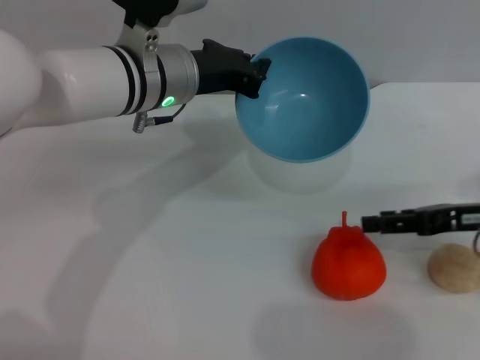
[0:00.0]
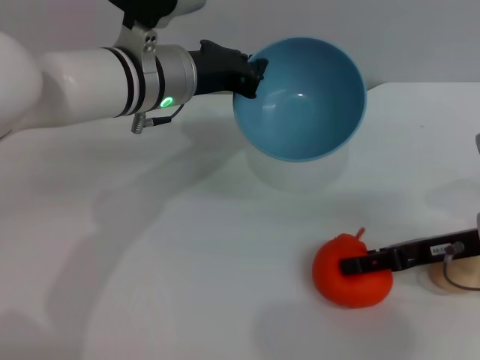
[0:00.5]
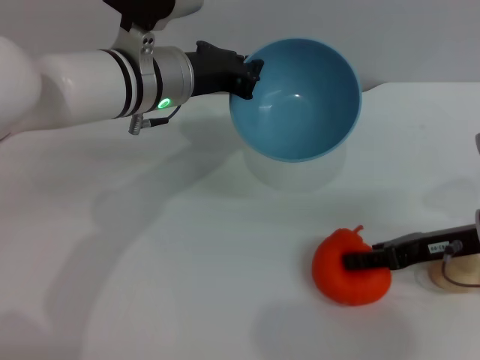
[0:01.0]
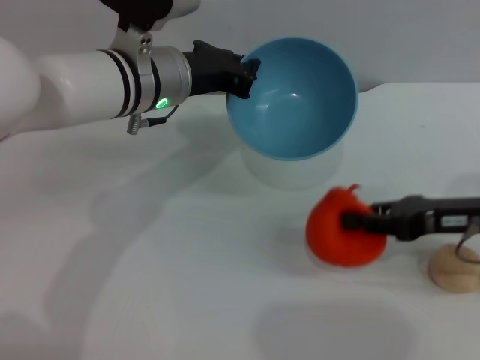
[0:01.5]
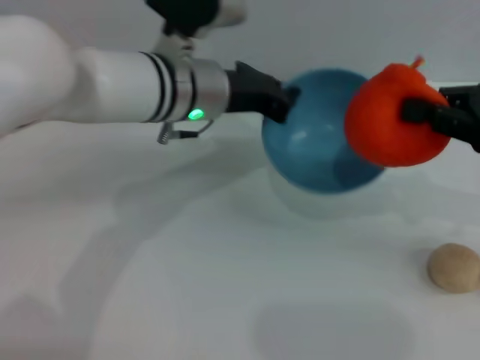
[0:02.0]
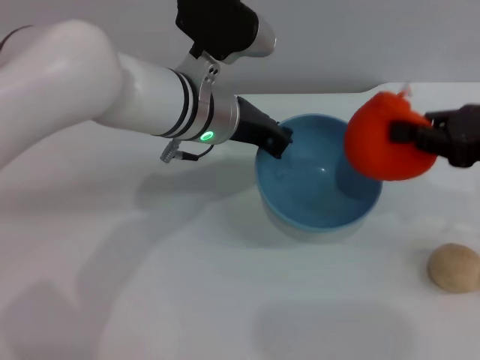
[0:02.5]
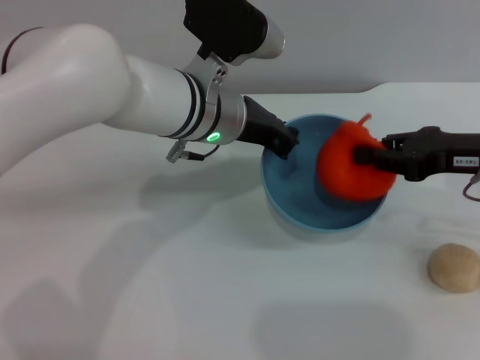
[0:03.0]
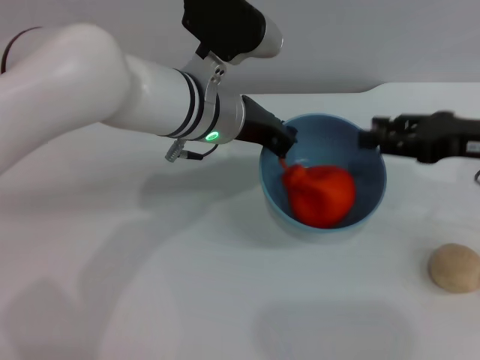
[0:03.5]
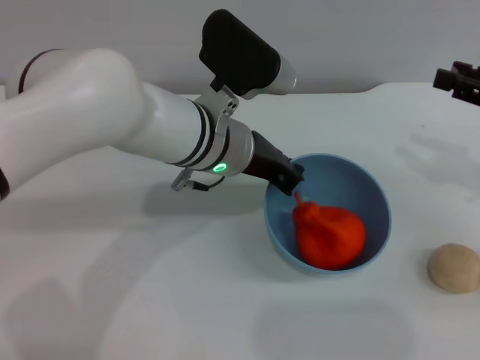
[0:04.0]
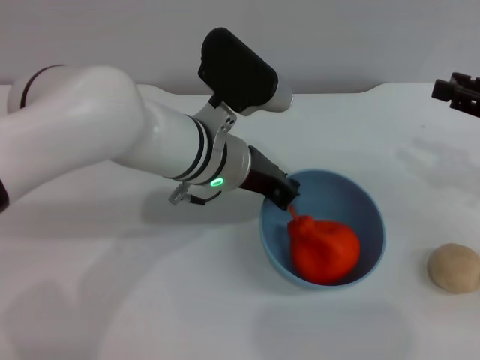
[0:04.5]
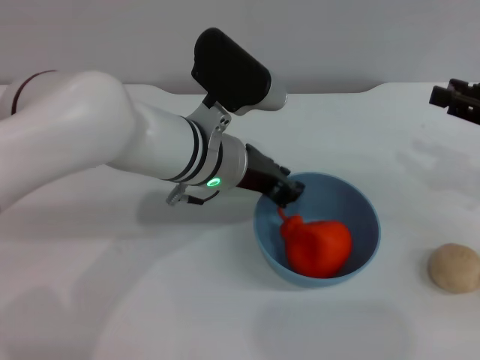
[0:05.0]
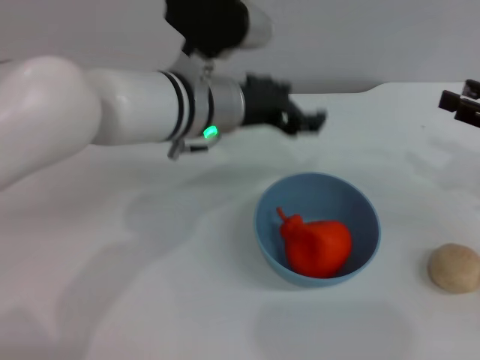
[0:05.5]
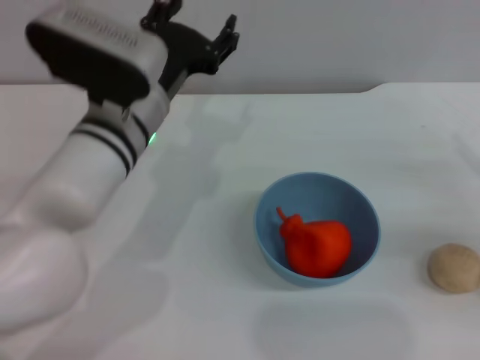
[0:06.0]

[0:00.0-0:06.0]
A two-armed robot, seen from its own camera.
Task of the whole recording: put the orange into the blue bowl and pour it out repeatedly.
Step, 0:00.0 to 0:01.5: Pick up the orange with the right gripper.
Step, 0:02.0 to 0:03.5: Place the orange into the bowl.
Step, 0:04.0 to 0:05.5: Place the bowl on the table.
0:00.0 to 0:02.0: The right gripper is displaced upward by some 10 cm, and closes its fingers.
0:02.0 to 0:04.0: The right gripper shifts by about 5 cm, and opens up.
0:04.0 to 0:06.0: The left gripper shifts about 5 cm to the left, and opens up. The right gripper goes about 10 cm downward.

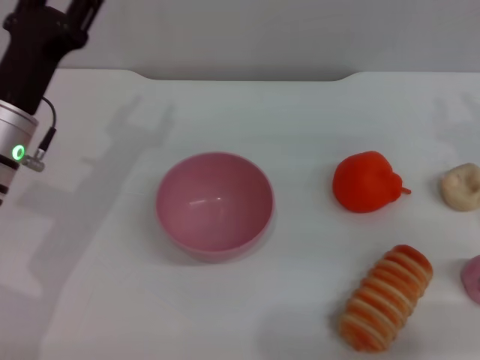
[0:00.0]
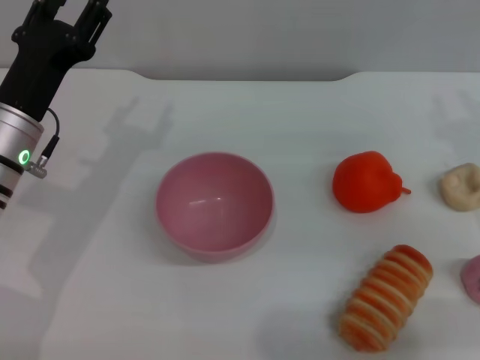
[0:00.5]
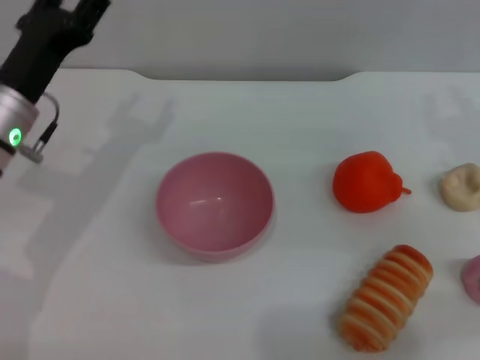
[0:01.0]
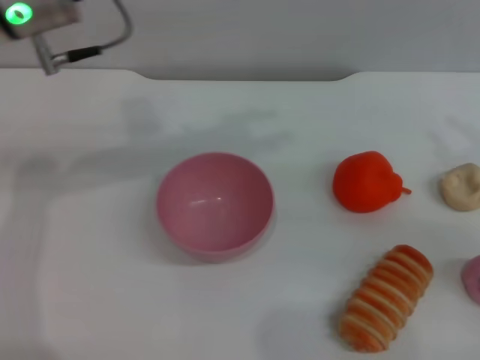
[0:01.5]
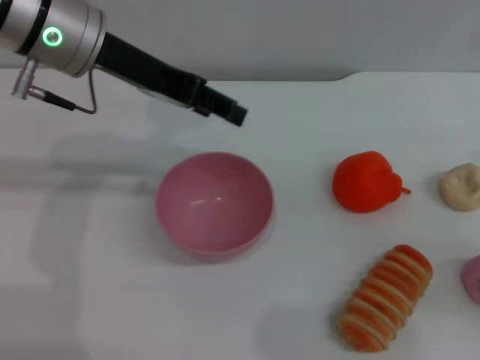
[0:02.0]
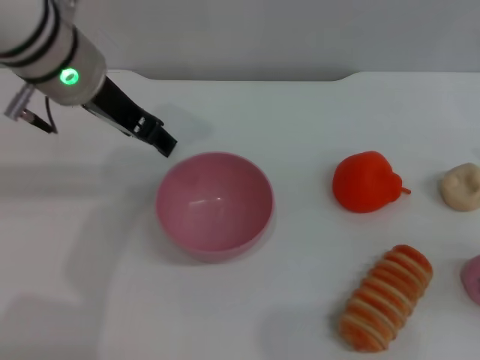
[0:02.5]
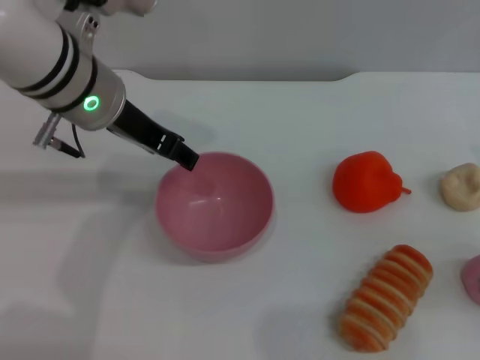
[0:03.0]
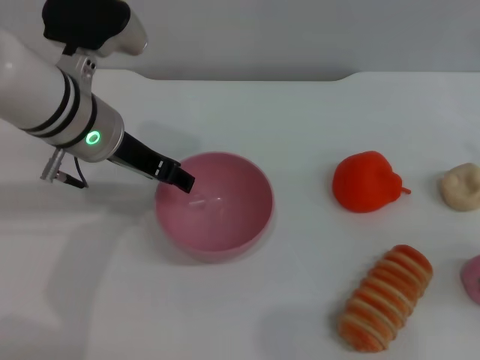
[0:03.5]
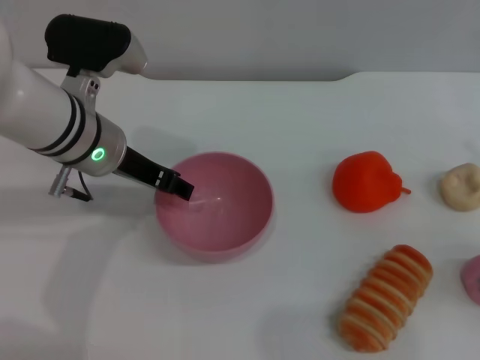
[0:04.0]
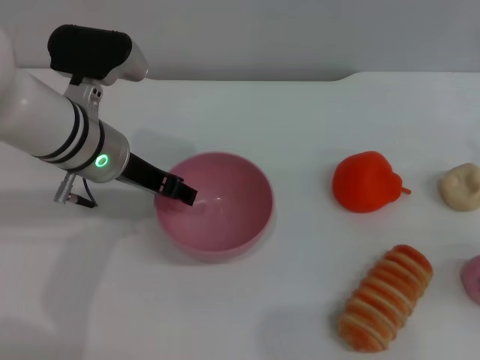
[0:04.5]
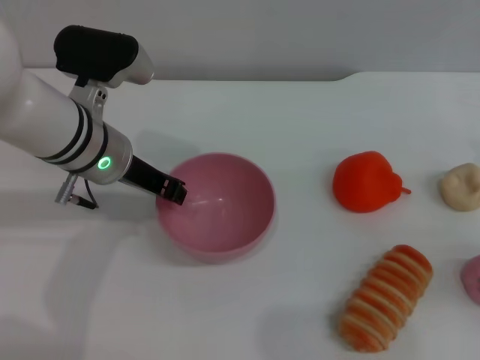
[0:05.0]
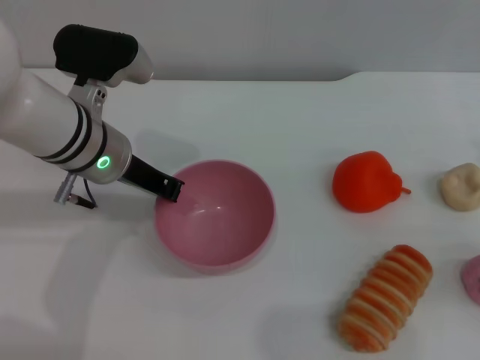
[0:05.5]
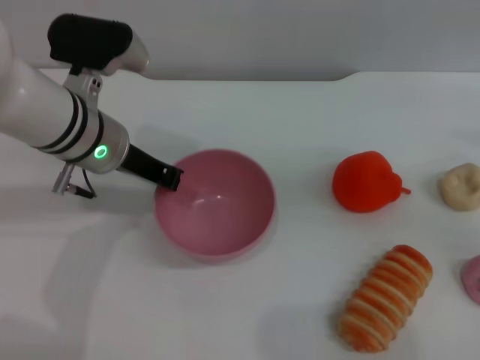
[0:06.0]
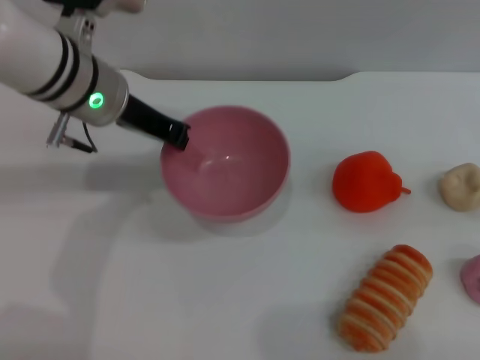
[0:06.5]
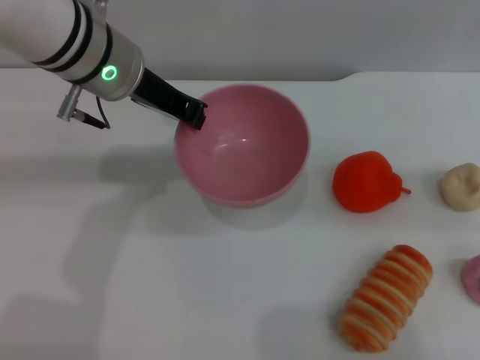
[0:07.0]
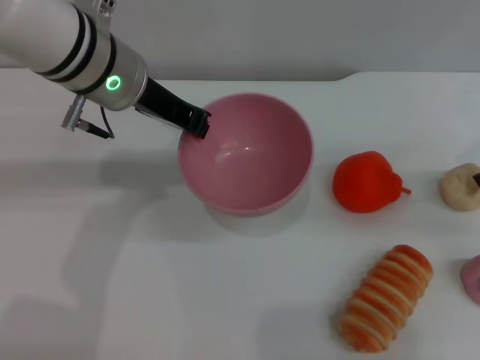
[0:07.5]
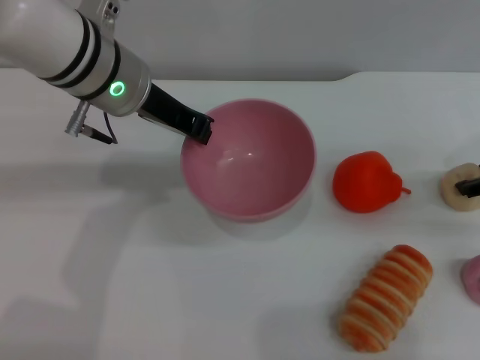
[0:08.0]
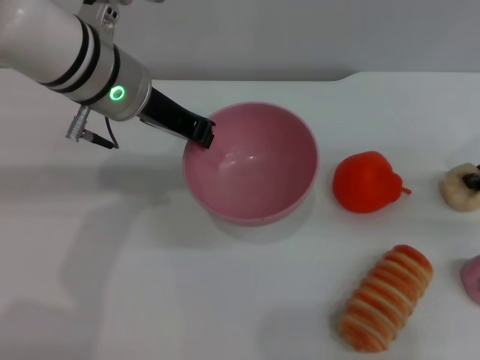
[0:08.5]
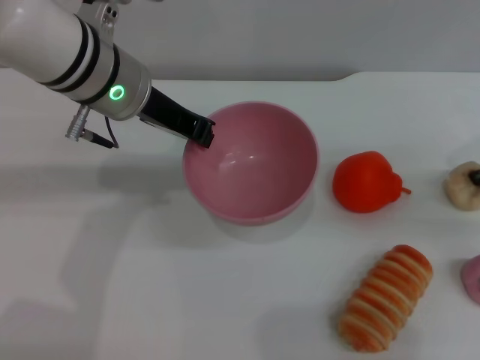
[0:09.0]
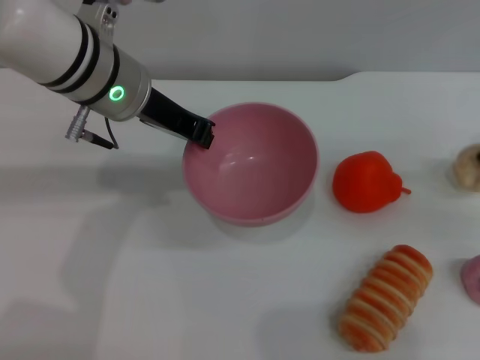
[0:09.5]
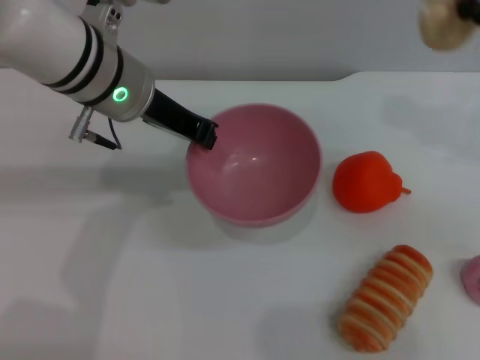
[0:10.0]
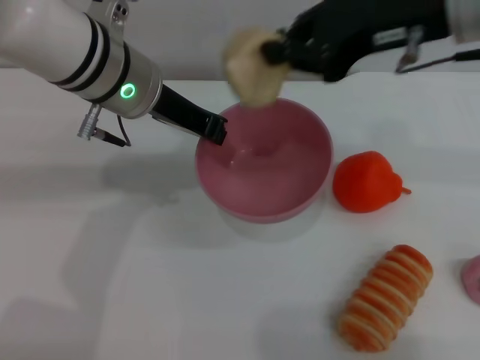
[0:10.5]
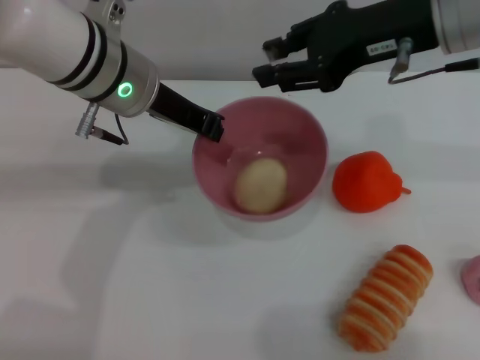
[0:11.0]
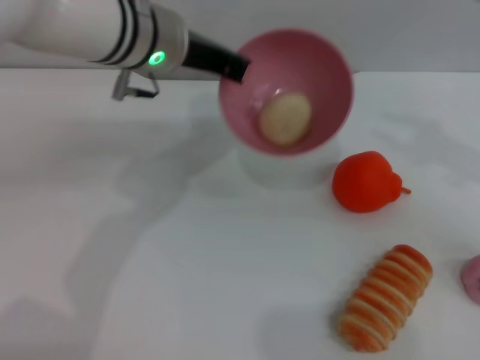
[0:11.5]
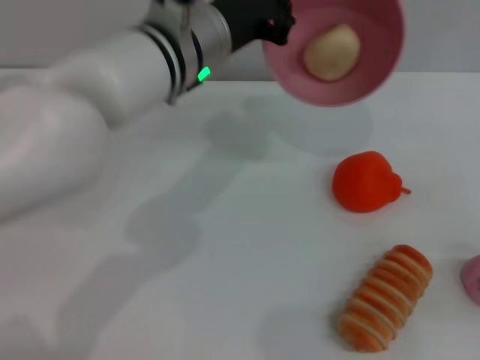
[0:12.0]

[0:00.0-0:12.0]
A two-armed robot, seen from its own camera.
Task of the whole recording: put the egg yolk pastry into the pink bowl and pour it out repeatedly.
Step, 0:00.0 to 0:06.0: Pick up the bowl with the left gripper.
Step, 0:06.5 to 0:09.5: Pick up the egg yolk pastry with the right gripper.
Step, 0:10.0 to 0:11.0: Place the egg yolk pastry into the bowl.
0:00.0 to 0:02.0: The right gripper goes some 10 cm to the right and backward. Meanwhile the left gripper goes approximately 15 cm upward, to the right and forward.
0:02.0 to 0:04.0: The left gripper heads downward, covering approximately 10 cm.
0:04.0 to 0:06.0: The right gripper shifts about 15 cm upward. Meanwhile the left gripper closes its fingers.
0:06.0 to 0:08.0: The left gripper heads upward, covering some 5 cm. The right gripper moves downward, forward and to the left, about 20 cm.
0:08.0 to 0:10.0: The right gripper goes roughly 15 cm upward, and closes.
0:10.0 to 0:12.0: The left gripper goes some 5 cm to the right. Meanwhile the right gripper is displaced downward, backward and to the right by approximately 20 cm, and opens.

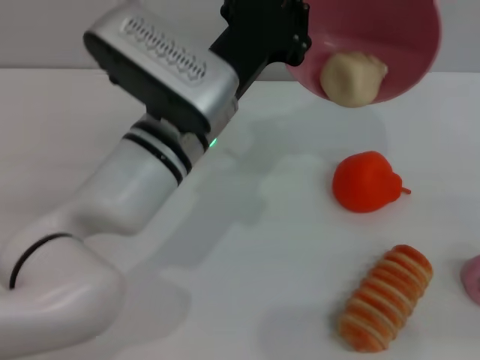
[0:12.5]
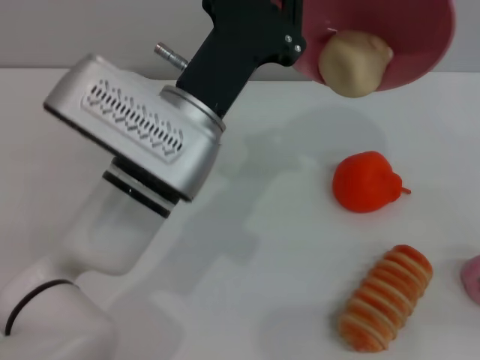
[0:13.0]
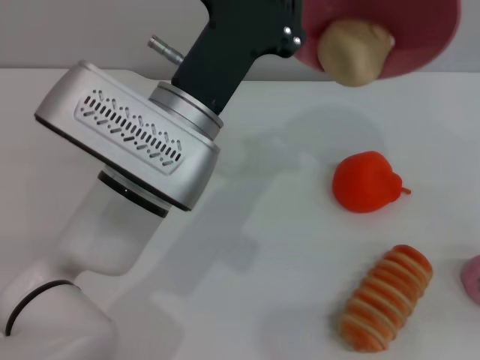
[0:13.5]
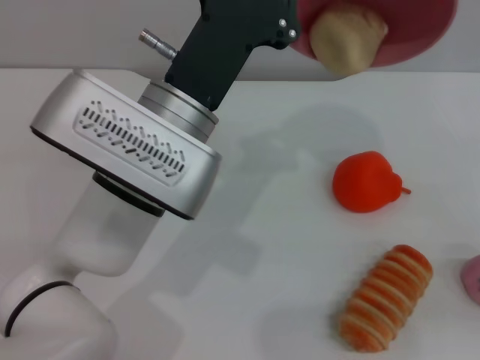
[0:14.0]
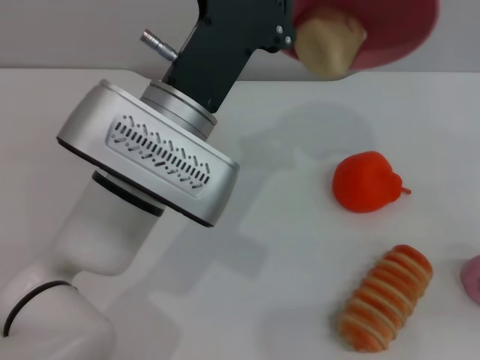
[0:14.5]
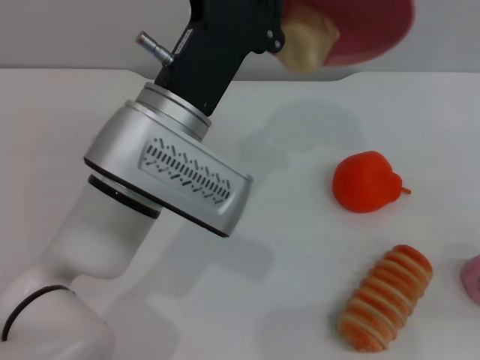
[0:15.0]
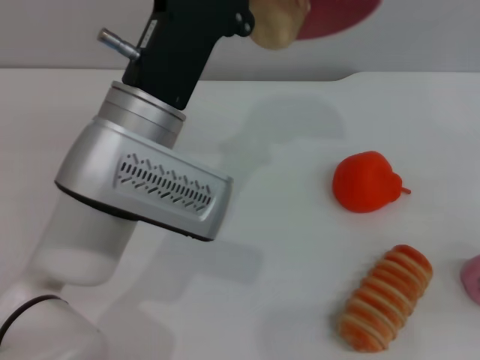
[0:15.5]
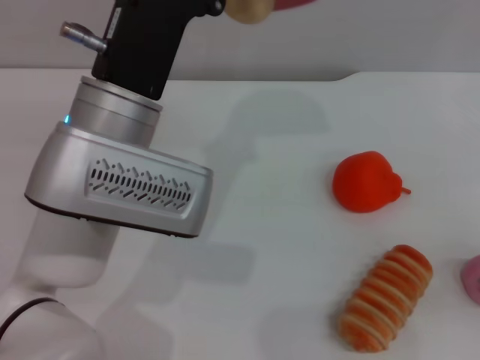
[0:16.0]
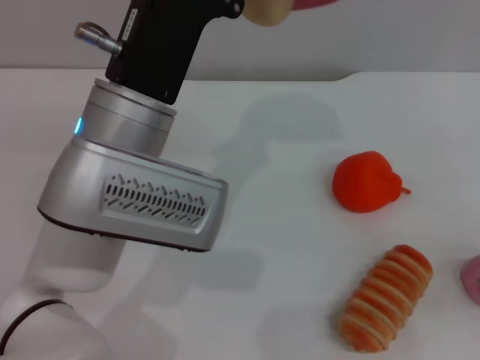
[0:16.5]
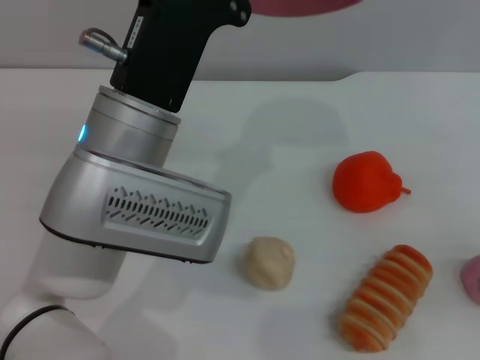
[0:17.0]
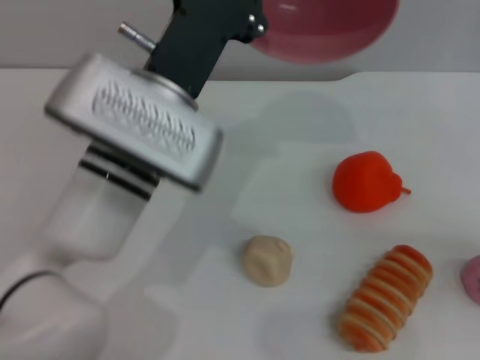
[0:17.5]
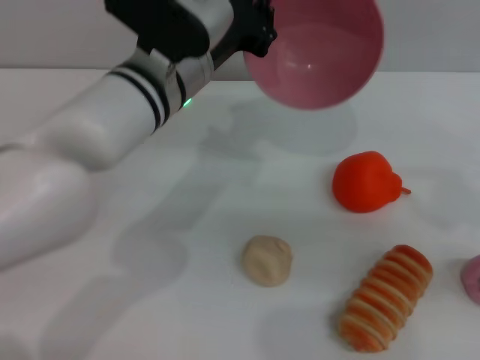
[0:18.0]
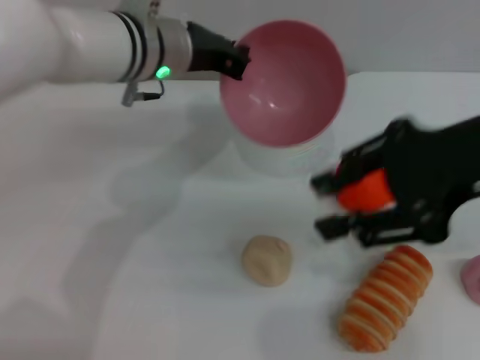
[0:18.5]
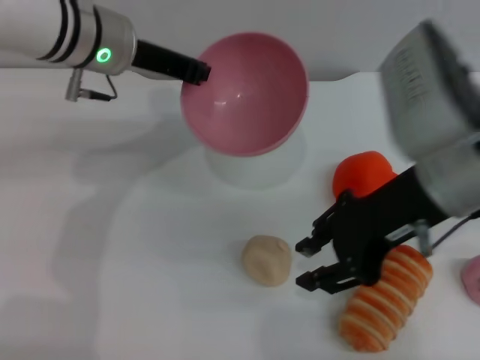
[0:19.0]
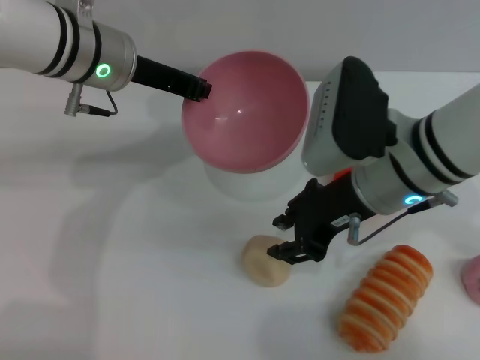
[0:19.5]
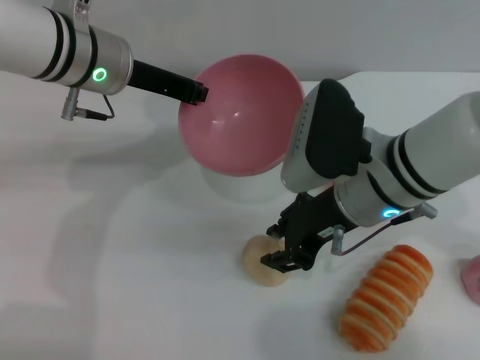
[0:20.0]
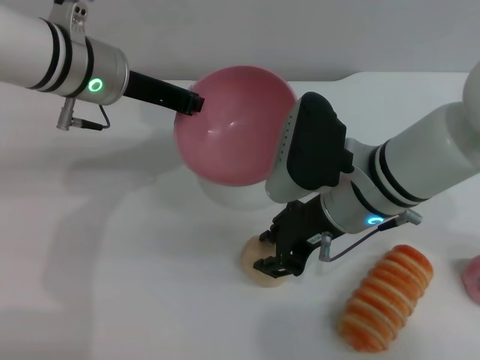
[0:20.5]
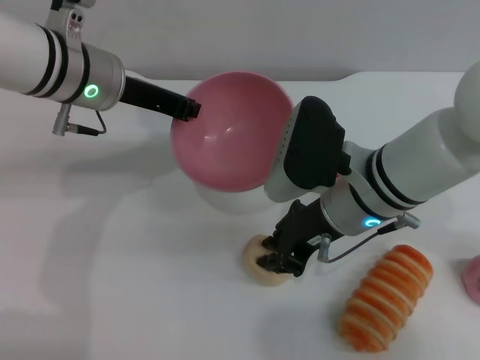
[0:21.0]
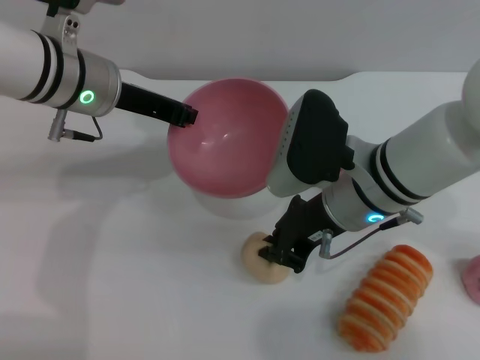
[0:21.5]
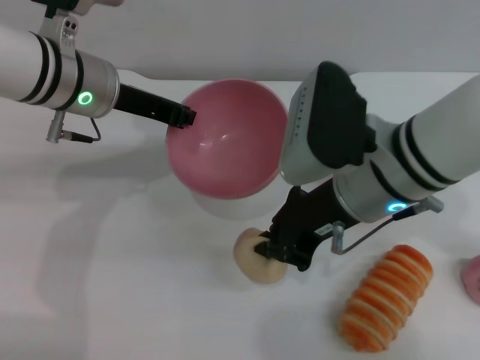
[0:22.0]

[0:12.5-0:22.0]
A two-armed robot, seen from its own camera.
Task of the whole recording: put the egg yolk pastry into the pink bowl and pour it out repeatedly.
Step, 0:12.5 to 0:17.5: Pour the egg yolk pastry out of bowl.
Step, 0:18.0 to 0:21.5: Pick up the egg yolk pastry with the right gripper.
0:16.5 to 0:18.0: The right gripper is displaced upward and to the left by approximately 10 cm. Meanwhile the left gripper shifts some 10 cm forward.
0:18.0 to 0:20.0: The right gripper is displaced to the left and downward by roughly 25 cm; the left gripper is displaced to the left by approximately 10 cm.
0:20.0 to 0:22.0: The right gripper closes up.
